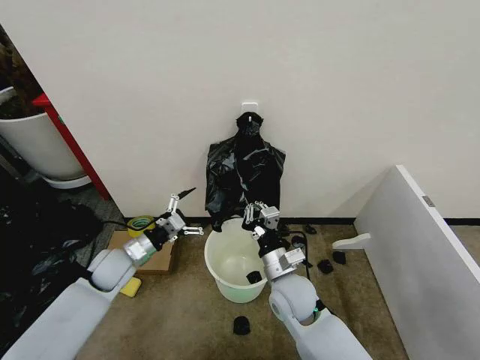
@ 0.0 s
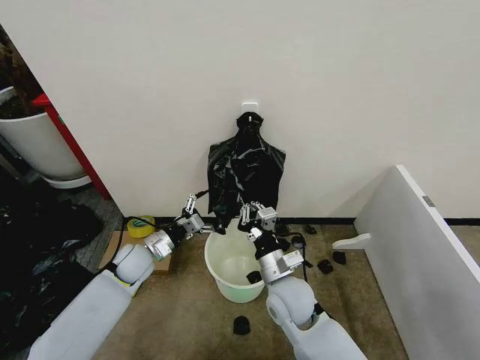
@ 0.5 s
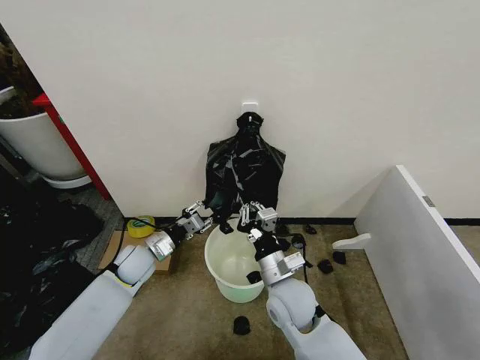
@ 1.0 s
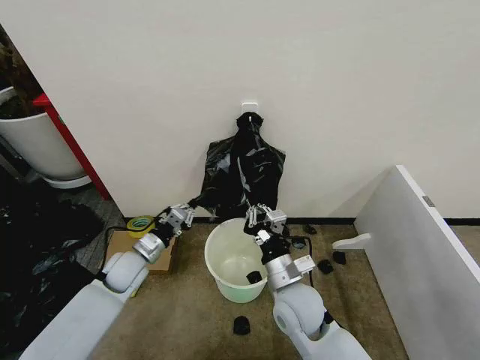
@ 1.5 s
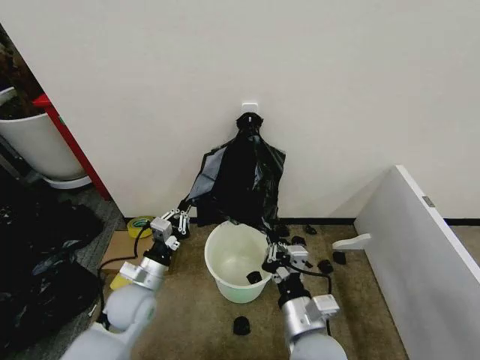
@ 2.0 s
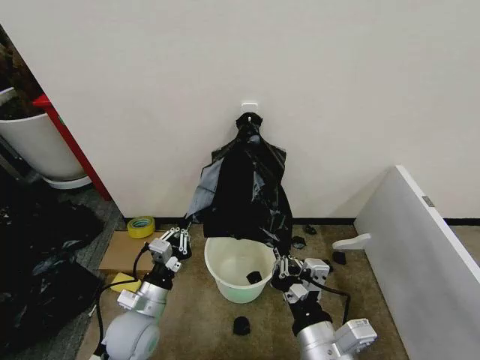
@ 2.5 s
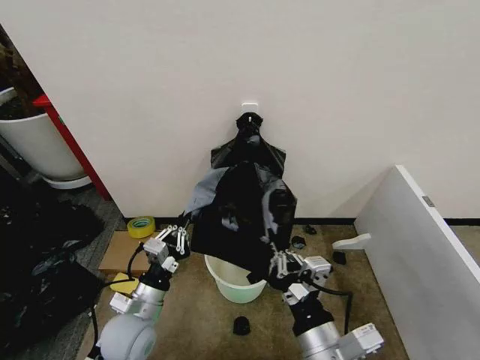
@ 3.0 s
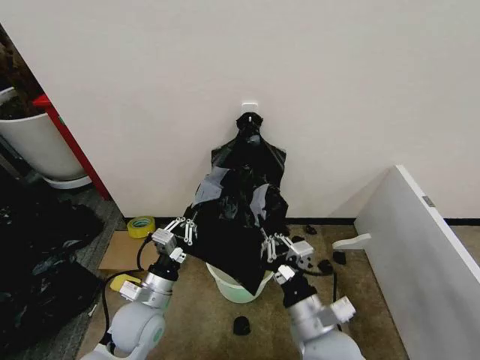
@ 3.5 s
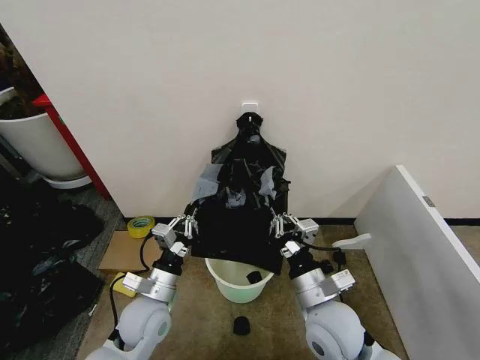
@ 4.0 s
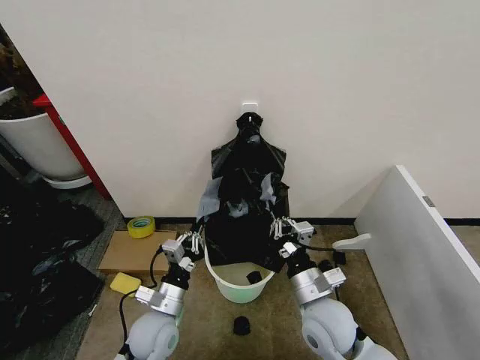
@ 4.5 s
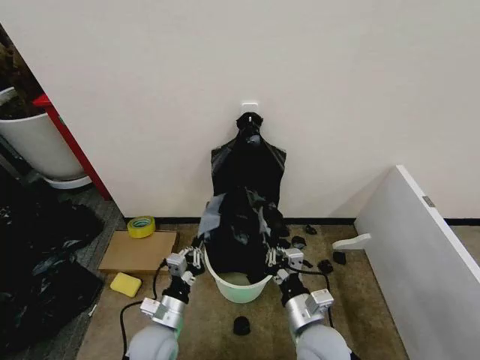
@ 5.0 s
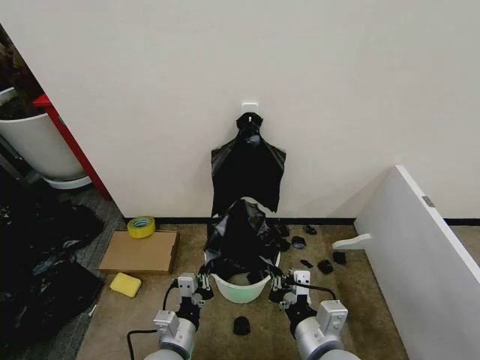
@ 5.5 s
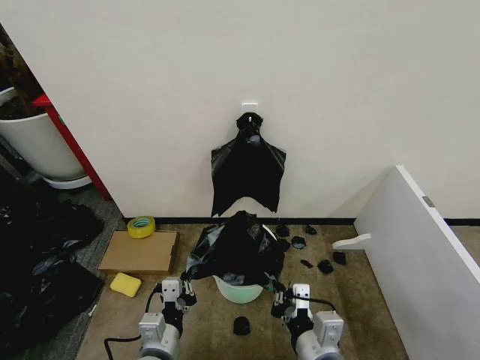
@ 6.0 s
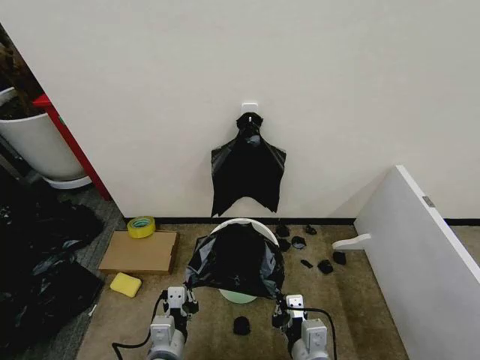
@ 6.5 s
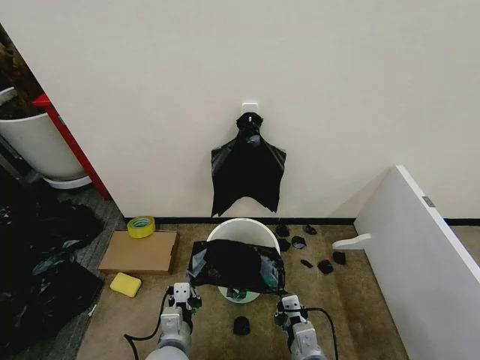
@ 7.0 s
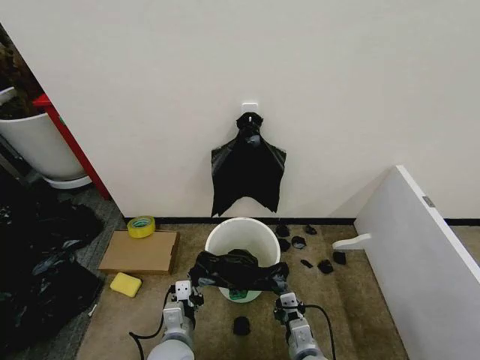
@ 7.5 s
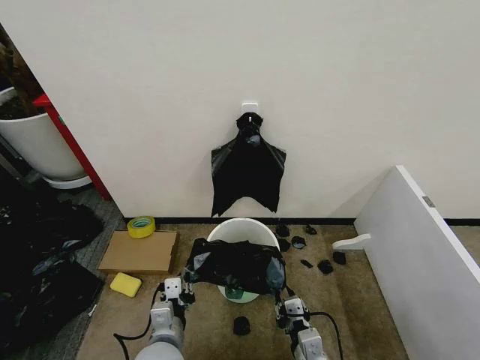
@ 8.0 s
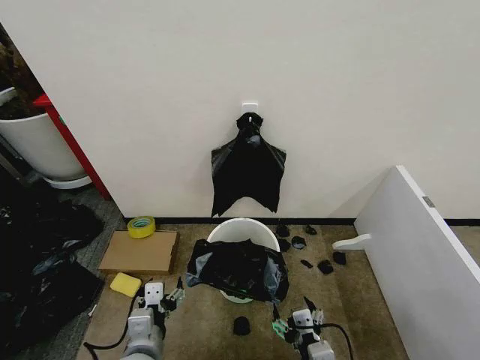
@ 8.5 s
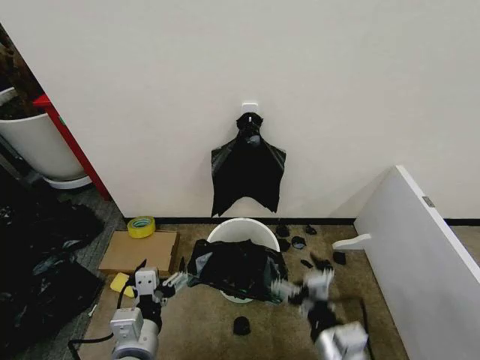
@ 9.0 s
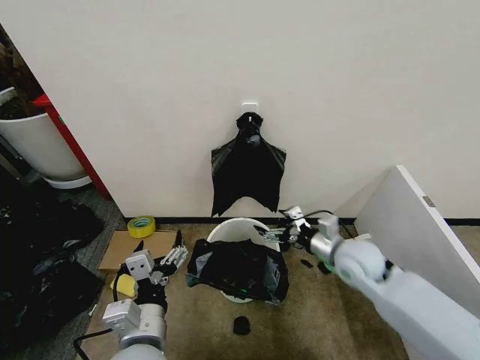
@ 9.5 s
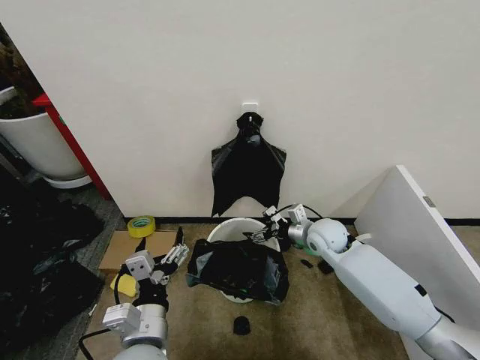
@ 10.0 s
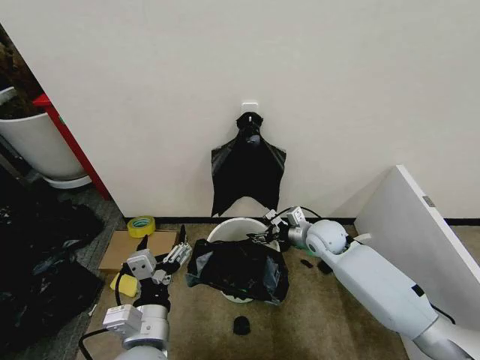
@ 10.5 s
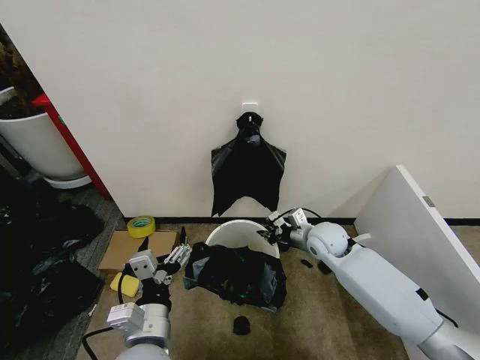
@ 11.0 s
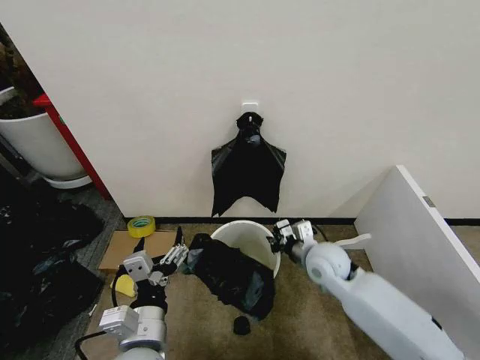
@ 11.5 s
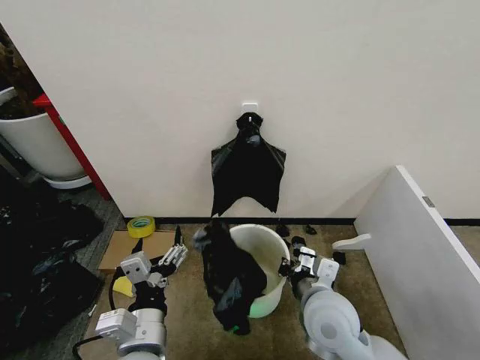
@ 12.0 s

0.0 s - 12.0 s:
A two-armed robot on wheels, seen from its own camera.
Task of the whole recording: Place the garbage bag over the trash bin.
0.0 s - 2.0 s: The right gripper heads backward, covering roughly 10 cm, while the left gripper is displaced backward and to the right by some 10 cm, and closes its fingers.
2.0 s - 4.0 s: The left gripper shifts by some 5 cm.
4.0 s - 6.0 s: Both grippers travel together backward, roughly 10 cm.
6.0 s - 8.0 s: The right gripper moves downward, some 10 cm.
8.0 s - 10.0 s: The right gripper goes approximately 30 cm forward, and opens up. Meanwhile the left gripper moves upward, approximately 10 cm, and opens.
10.0 s - 12.0 s: The right gripper goes about 20 cm backward, and closes its fingers.

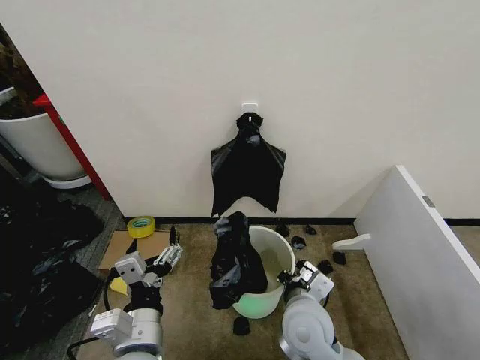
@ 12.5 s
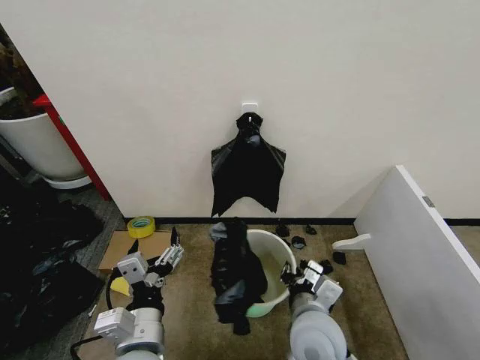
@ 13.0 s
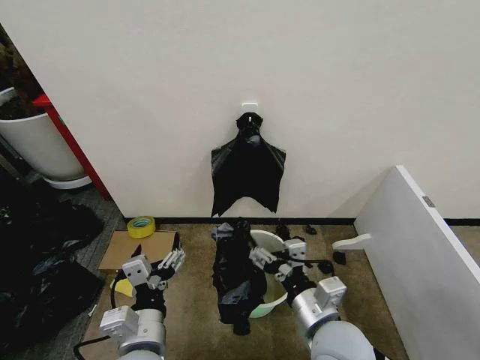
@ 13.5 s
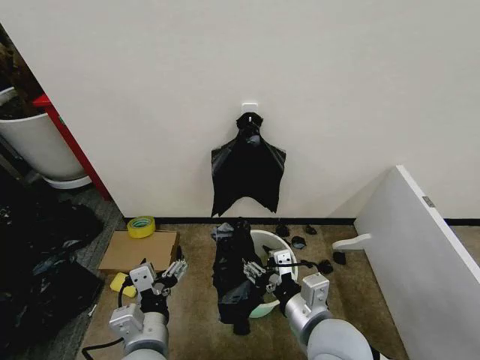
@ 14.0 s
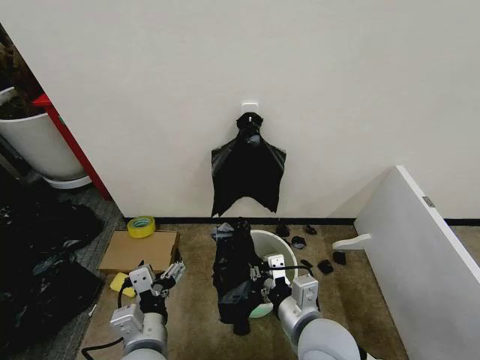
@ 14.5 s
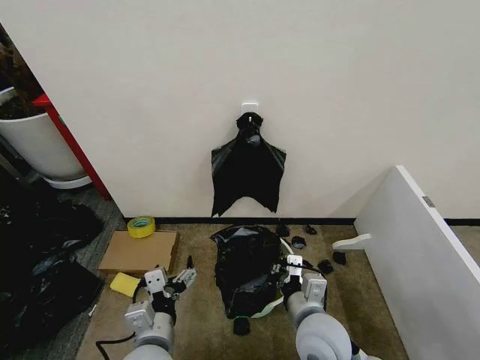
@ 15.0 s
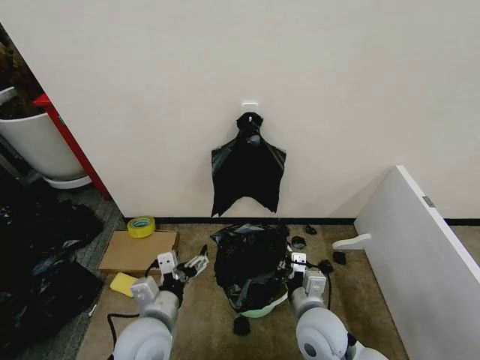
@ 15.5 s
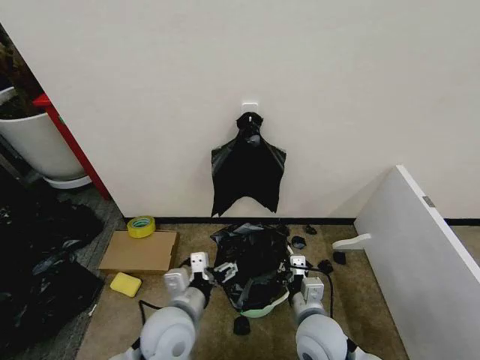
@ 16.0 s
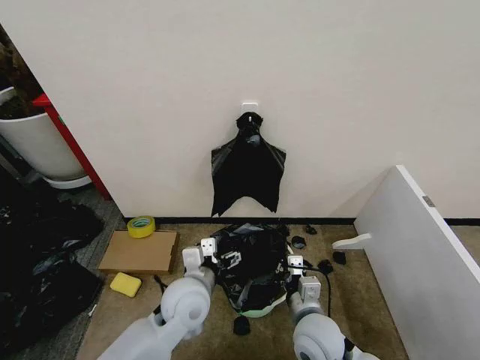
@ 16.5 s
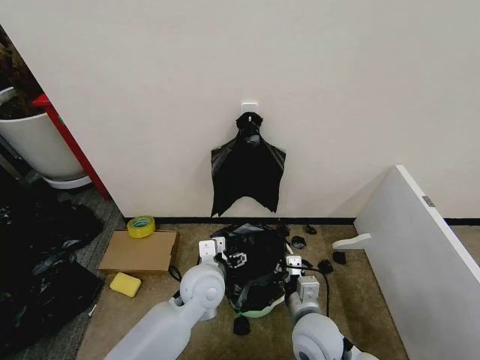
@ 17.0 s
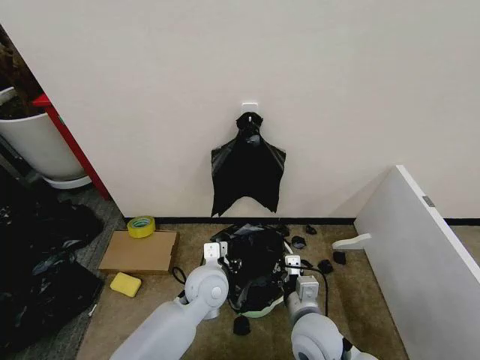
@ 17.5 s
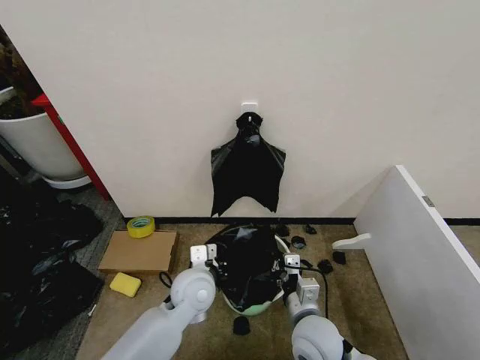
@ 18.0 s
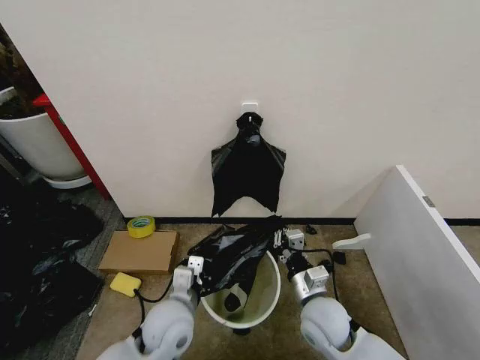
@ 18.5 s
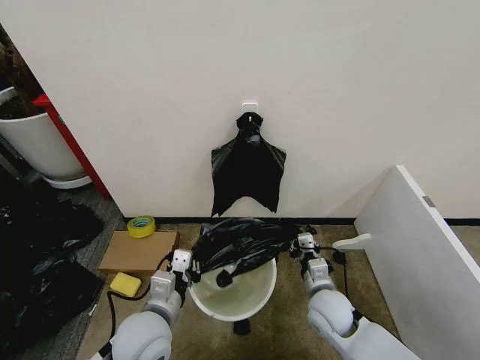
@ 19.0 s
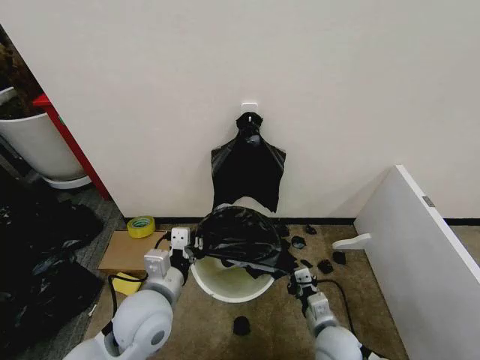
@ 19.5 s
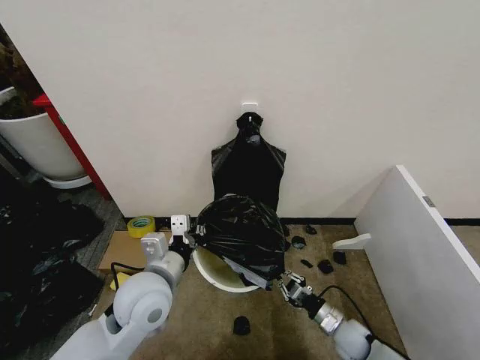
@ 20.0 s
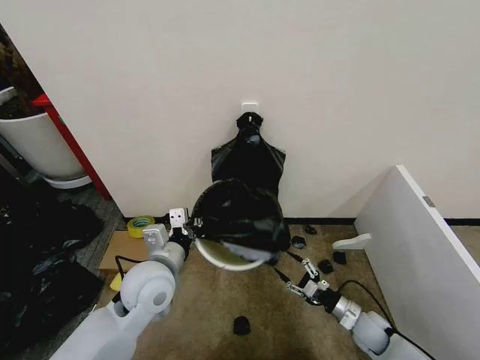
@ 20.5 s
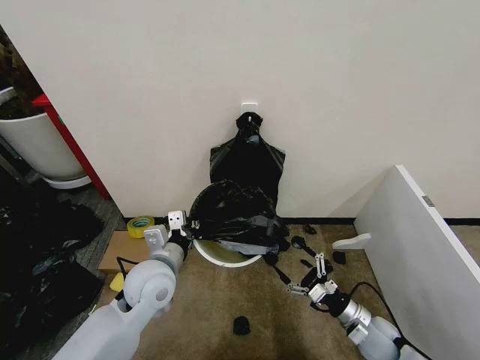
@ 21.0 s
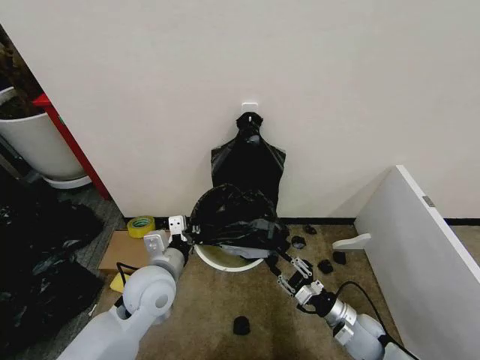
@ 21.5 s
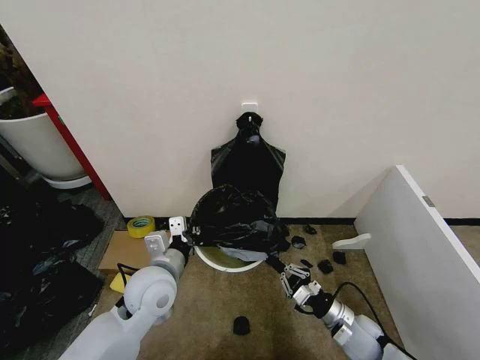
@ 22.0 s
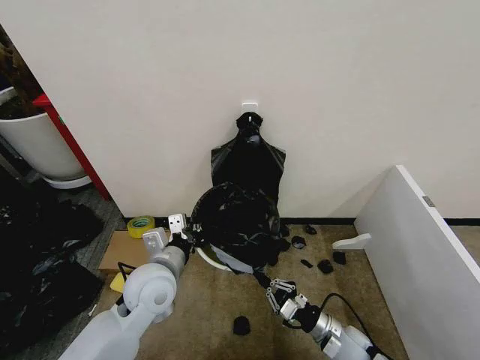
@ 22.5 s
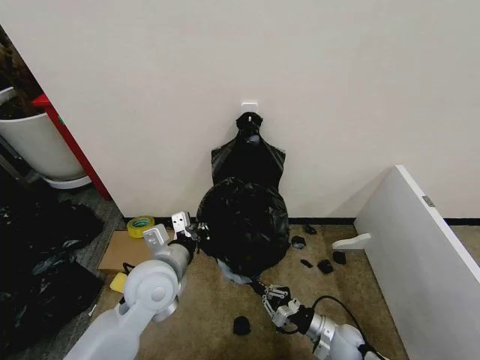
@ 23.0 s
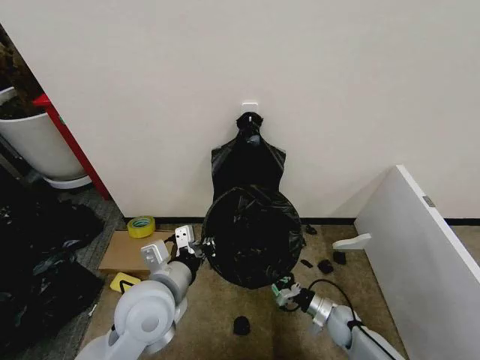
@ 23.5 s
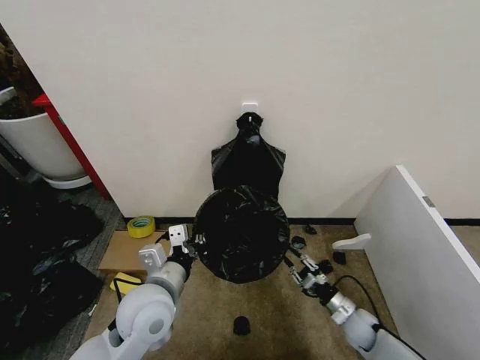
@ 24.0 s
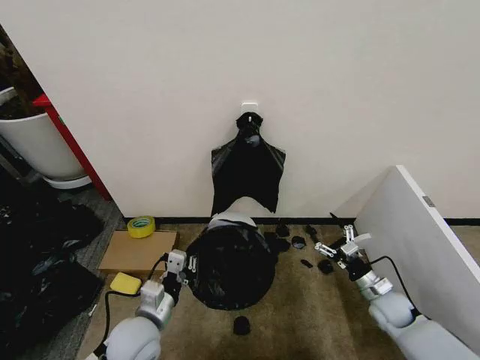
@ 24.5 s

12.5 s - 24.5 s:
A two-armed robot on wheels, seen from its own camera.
Task of the whole recording: Place the garbage bag over the trash bin.
12.5 s - 14.5 s: The right gripper goes some 5 cm backward, and opens, then closes again.
14.5 s - 16.5 s: The left gripper is displaced forward and to the right by approximately 15 cm. The right gripper travels downward by approximately 10 cm.
16.5 s - 18.5 s: The left gripper ends up some 5 cm from where it was, and closes.
18.5 s - 20.5 s: The right gripper shifts about 25 cm to the right and downward, and opens up. The left gripper goes about 10 cm upward and forward.
20.5 s - 22.5 s: The right gripper shifts some 10 cm to the left, and closes up.
22.5 s - 24.5 s: The right gripper is displaced to the right and forward by approximately 15 cm, and opens; the left gripper moves downward and backward, some 10 cm.

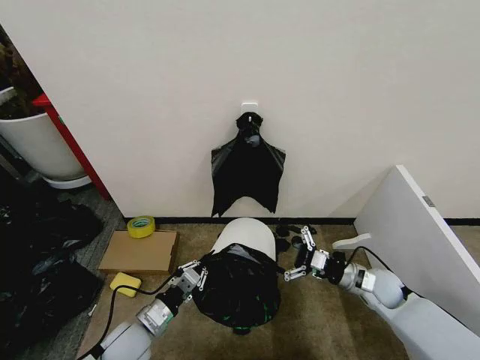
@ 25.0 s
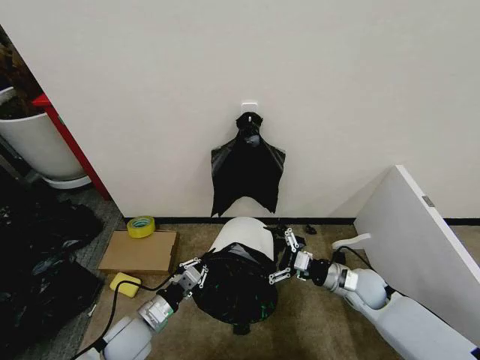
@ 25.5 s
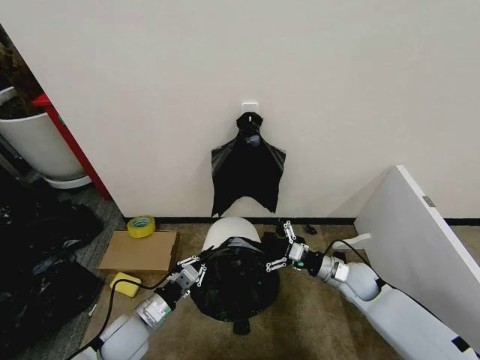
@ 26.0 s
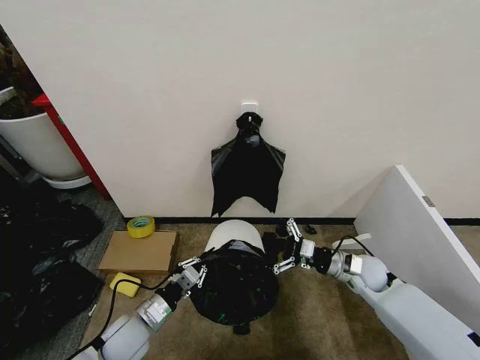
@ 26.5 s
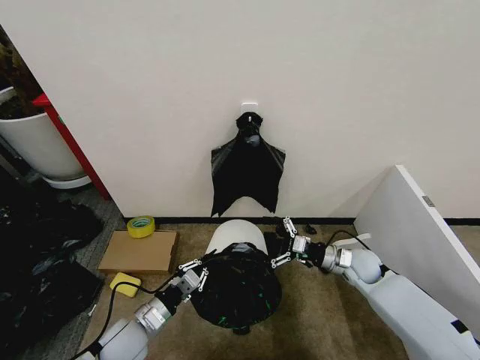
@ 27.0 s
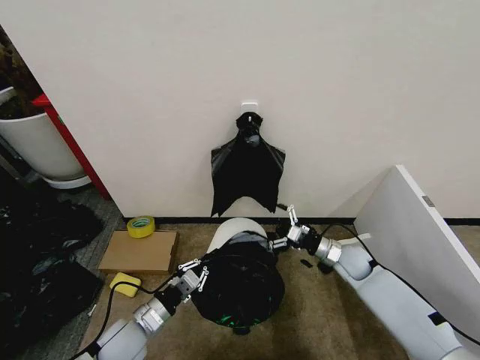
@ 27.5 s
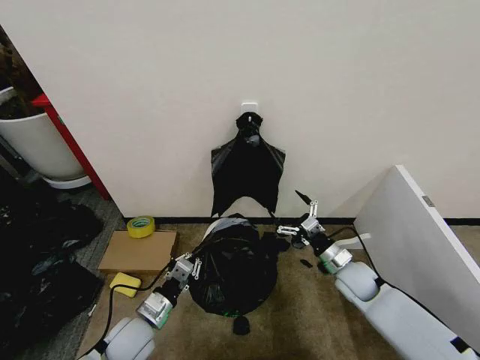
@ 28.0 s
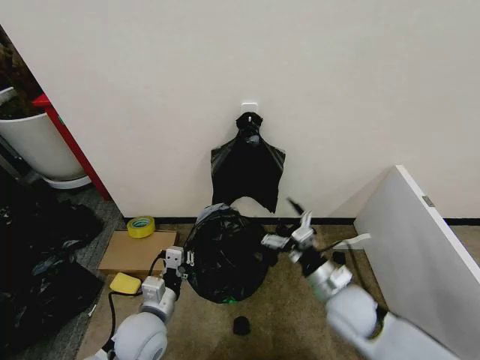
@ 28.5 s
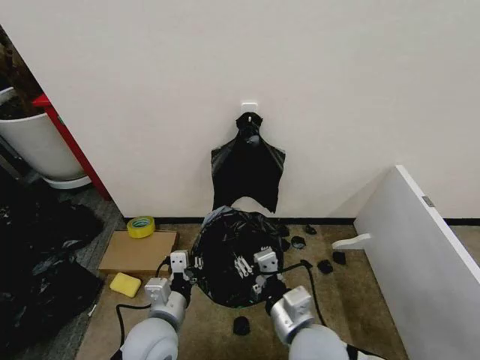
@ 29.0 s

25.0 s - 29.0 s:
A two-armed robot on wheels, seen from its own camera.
Task of the whole recording: Place the garbage bag over the trash bin.
25.0 s - 27.0 s: The right gripper moves forward, about 5 cm.
27.0 s - 29.0 s: The left gripper shifts about 10 cm to the right and upward; the right gripper travels backward, to the left and upward by some 30 cm, and closes its fingers.
